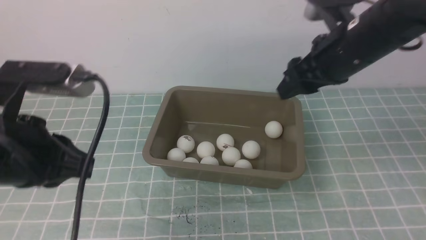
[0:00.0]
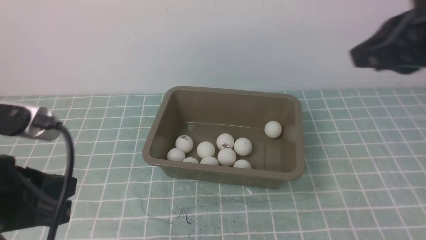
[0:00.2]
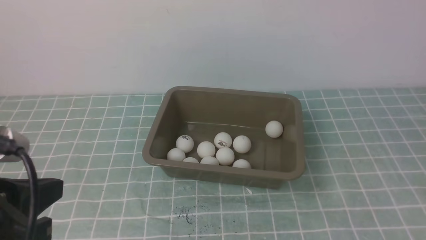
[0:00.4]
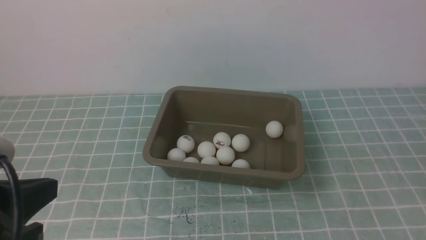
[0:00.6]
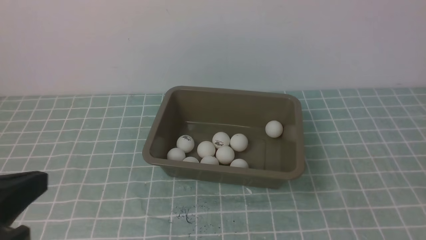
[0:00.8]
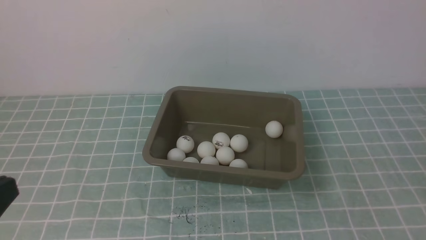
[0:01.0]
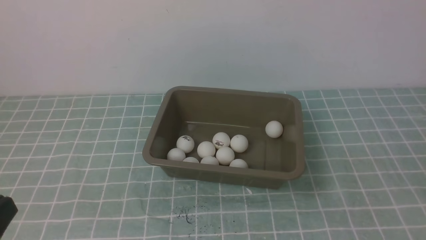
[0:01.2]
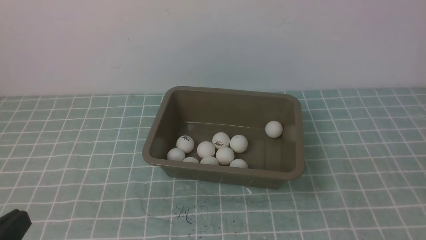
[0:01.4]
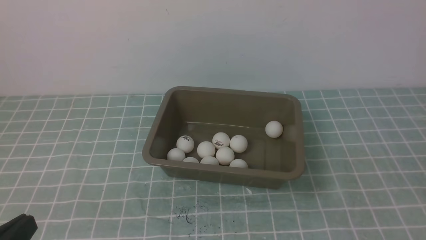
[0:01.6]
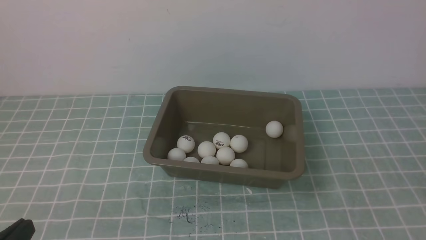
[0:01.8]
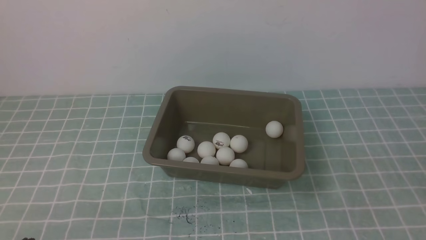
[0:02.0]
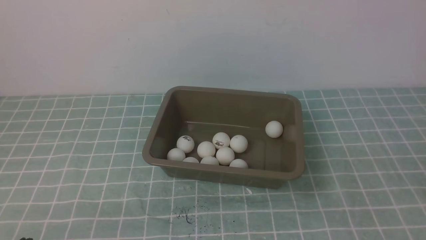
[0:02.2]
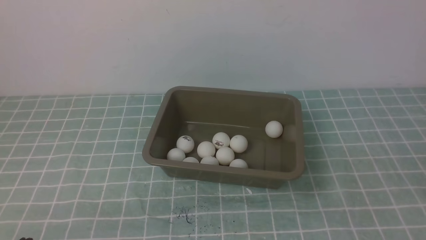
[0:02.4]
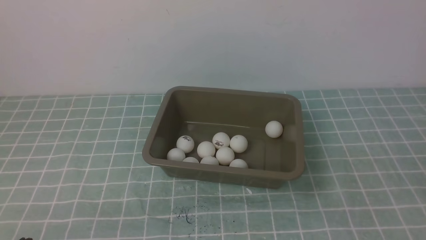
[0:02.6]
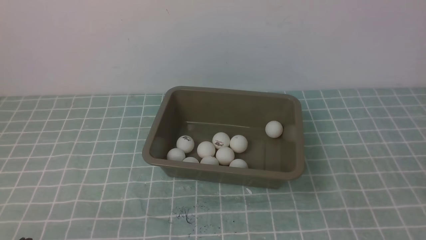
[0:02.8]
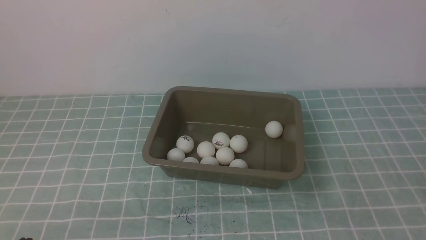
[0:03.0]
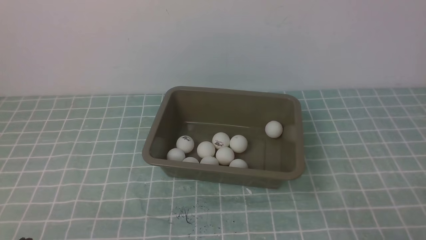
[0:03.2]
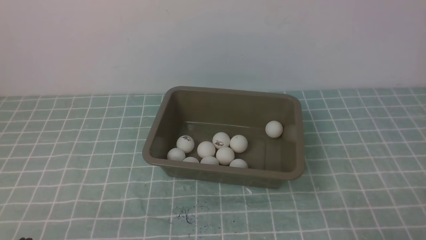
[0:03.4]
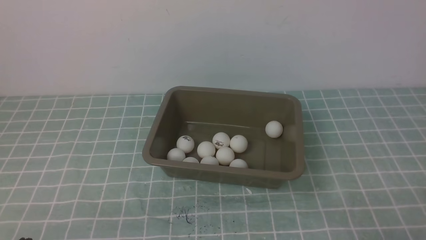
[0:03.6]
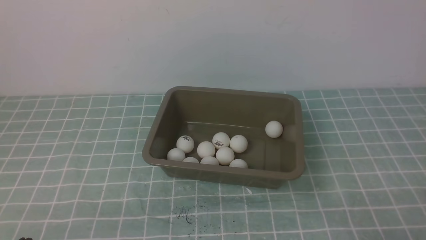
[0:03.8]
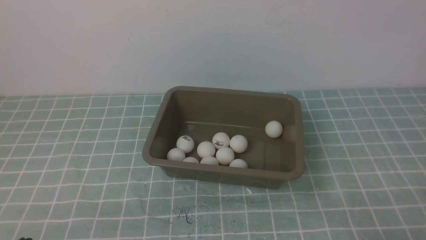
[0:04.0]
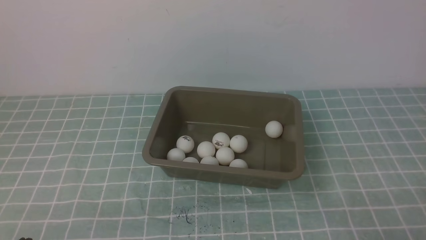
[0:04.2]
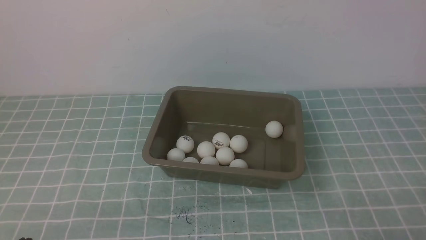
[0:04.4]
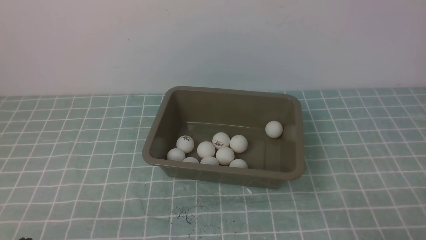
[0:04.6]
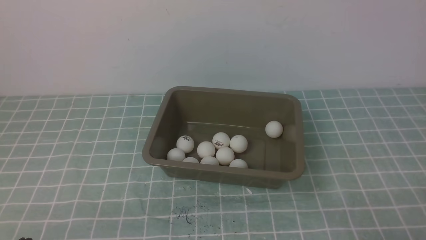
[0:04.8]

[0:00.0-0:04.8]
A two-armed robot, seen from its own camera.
0:00.0 to 0:01.6: The right gripper goes some 25 cm backward, and closes its fingers, while the left gripper travels backward and downward by some 15 cm.
0:01.6 to 0:03.2: The left gripper goes approximately 5 cm downward.
